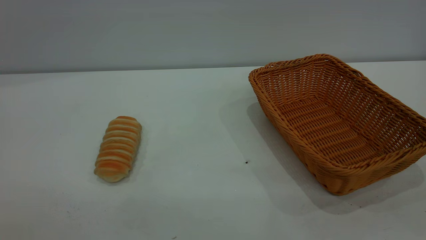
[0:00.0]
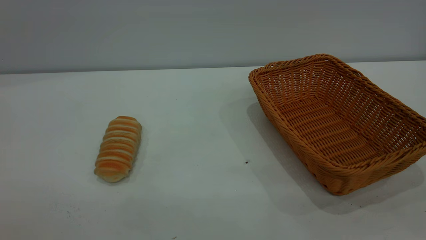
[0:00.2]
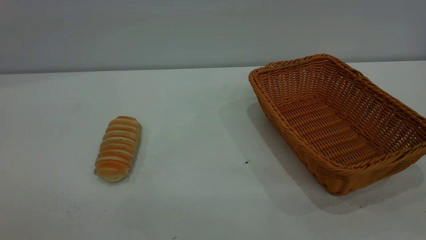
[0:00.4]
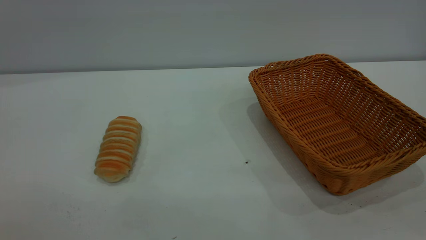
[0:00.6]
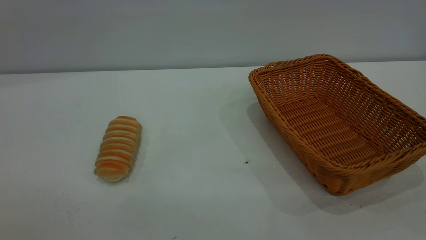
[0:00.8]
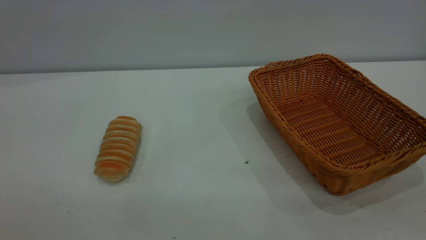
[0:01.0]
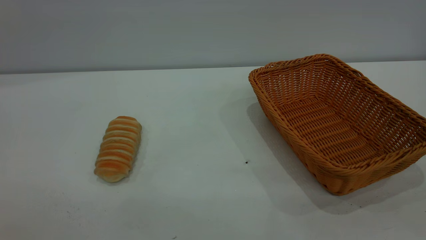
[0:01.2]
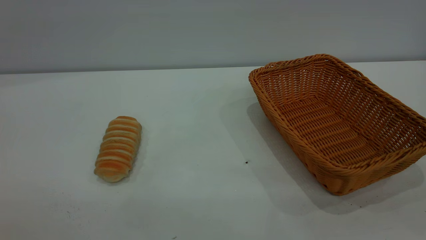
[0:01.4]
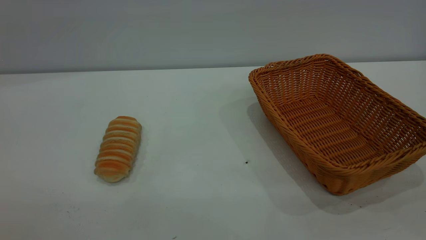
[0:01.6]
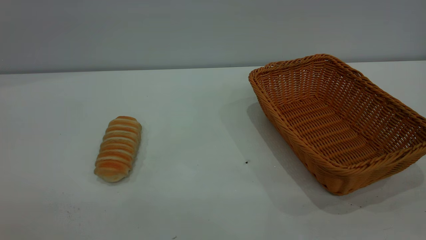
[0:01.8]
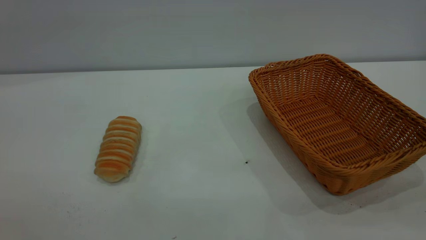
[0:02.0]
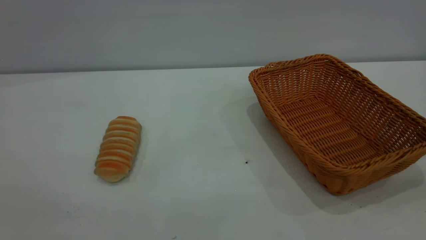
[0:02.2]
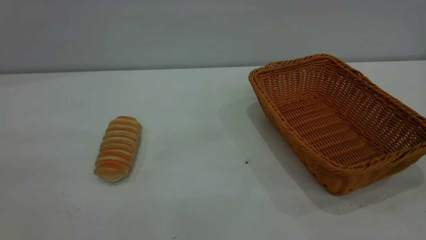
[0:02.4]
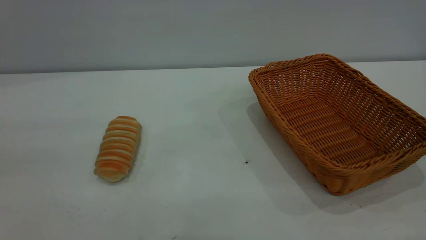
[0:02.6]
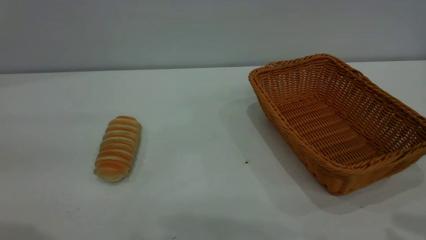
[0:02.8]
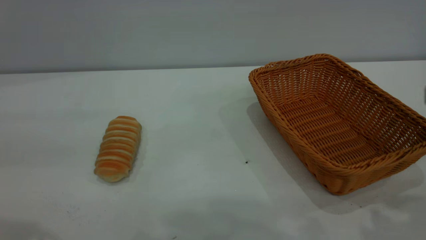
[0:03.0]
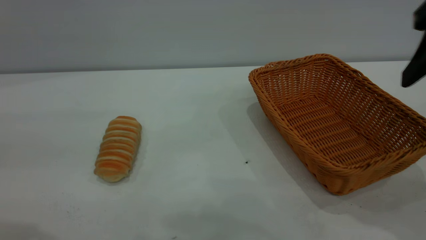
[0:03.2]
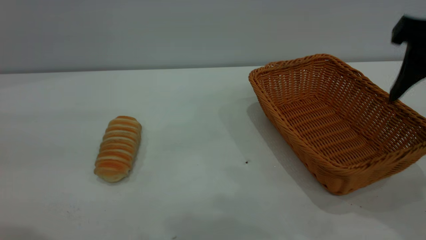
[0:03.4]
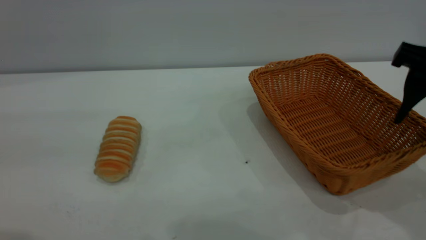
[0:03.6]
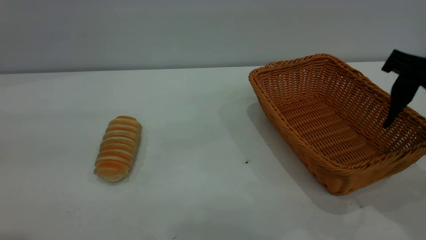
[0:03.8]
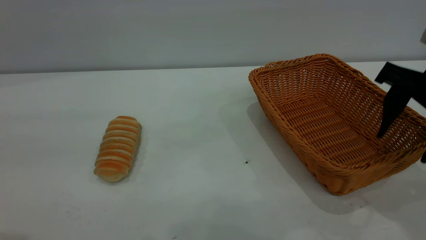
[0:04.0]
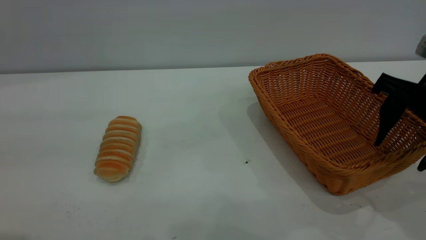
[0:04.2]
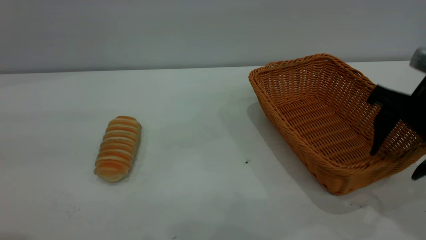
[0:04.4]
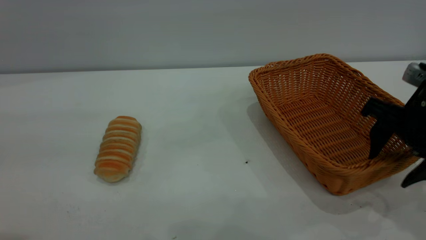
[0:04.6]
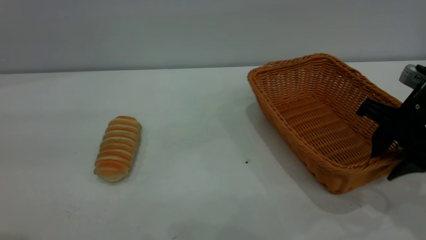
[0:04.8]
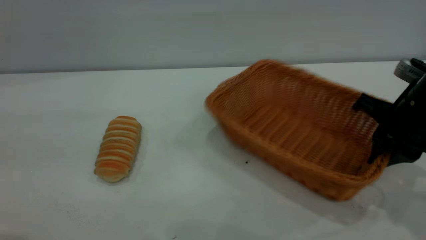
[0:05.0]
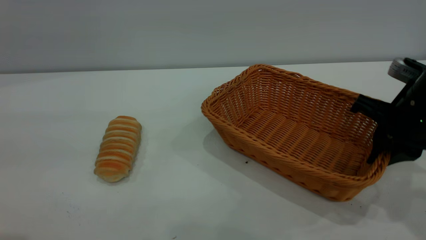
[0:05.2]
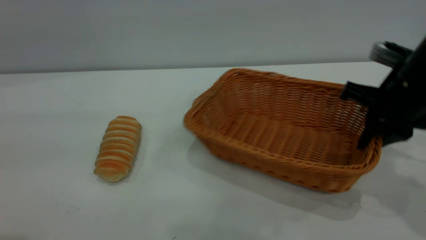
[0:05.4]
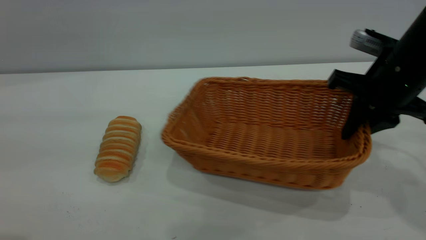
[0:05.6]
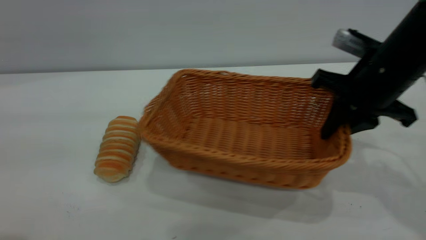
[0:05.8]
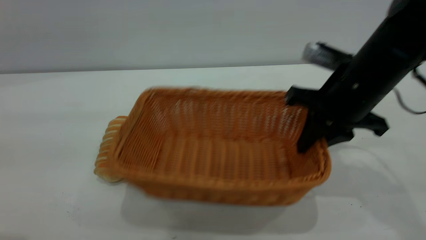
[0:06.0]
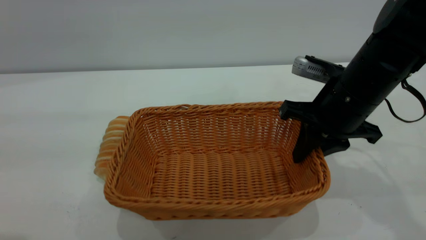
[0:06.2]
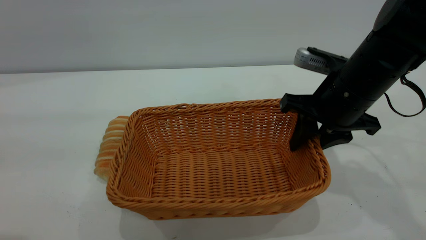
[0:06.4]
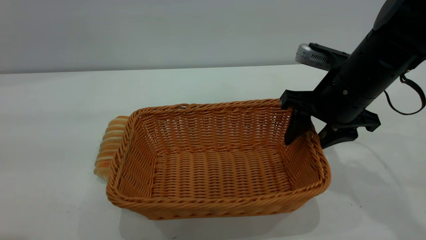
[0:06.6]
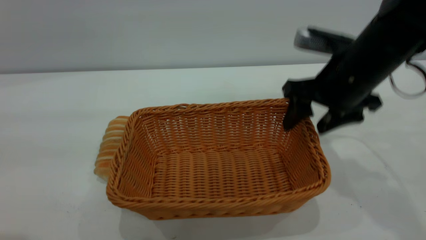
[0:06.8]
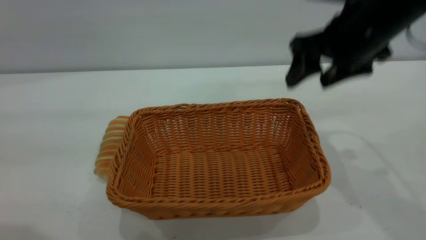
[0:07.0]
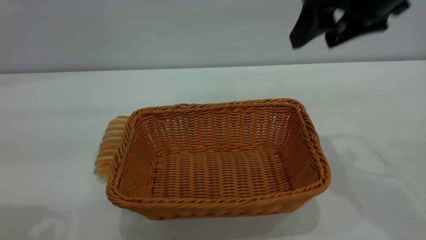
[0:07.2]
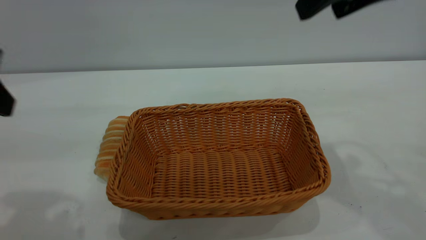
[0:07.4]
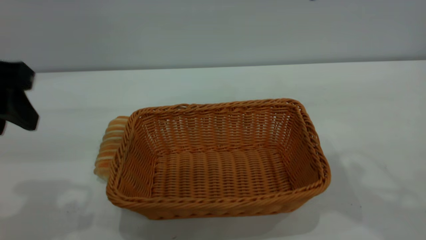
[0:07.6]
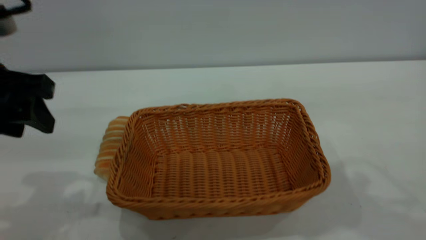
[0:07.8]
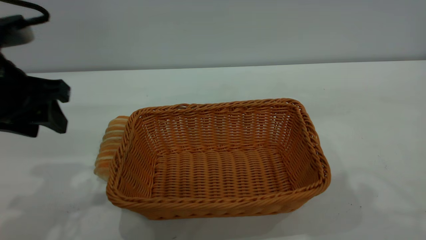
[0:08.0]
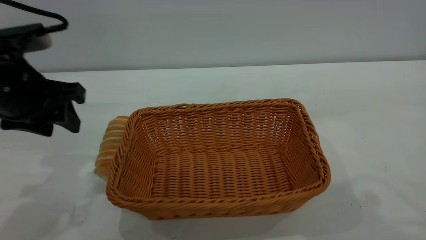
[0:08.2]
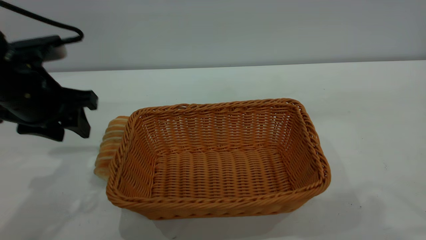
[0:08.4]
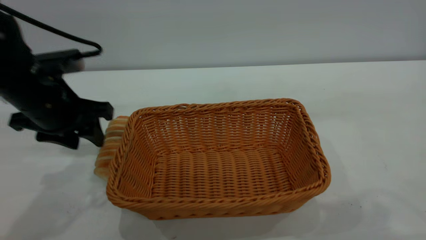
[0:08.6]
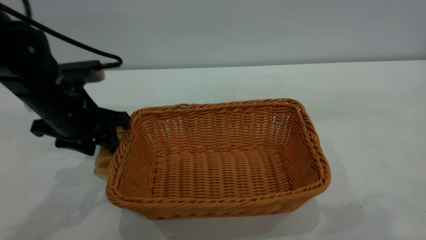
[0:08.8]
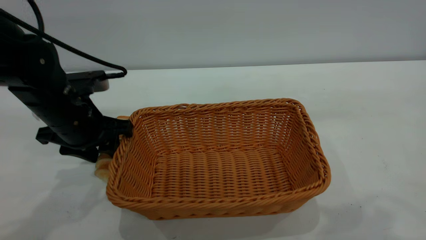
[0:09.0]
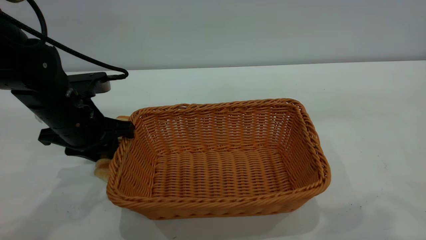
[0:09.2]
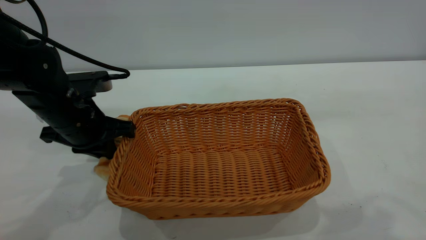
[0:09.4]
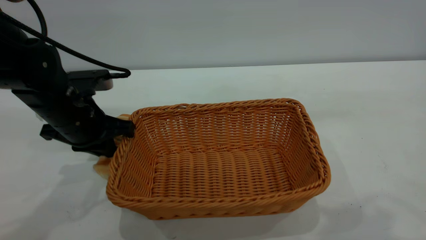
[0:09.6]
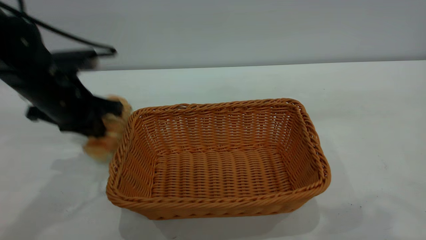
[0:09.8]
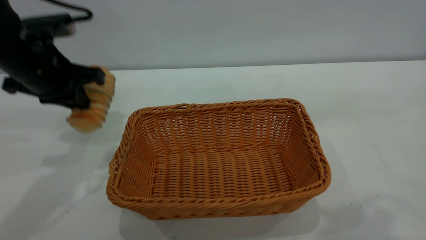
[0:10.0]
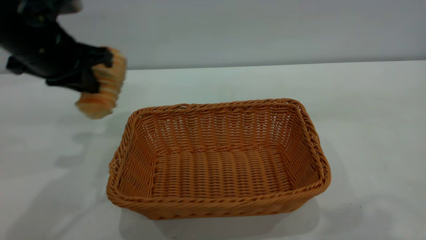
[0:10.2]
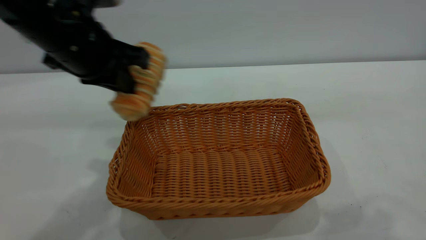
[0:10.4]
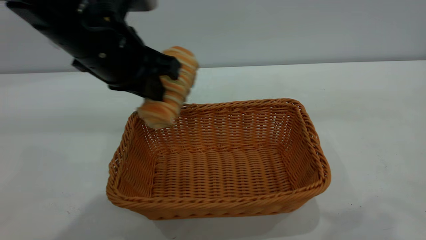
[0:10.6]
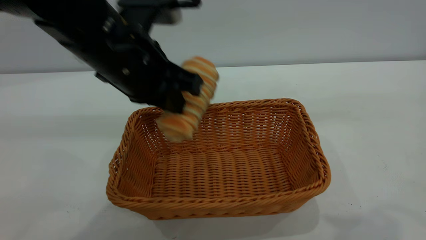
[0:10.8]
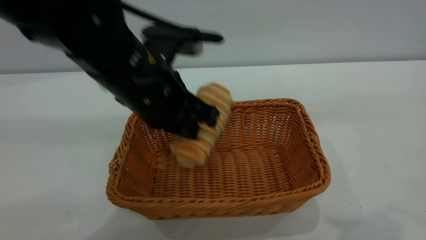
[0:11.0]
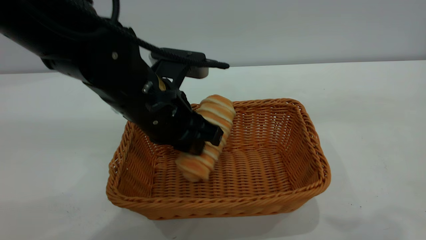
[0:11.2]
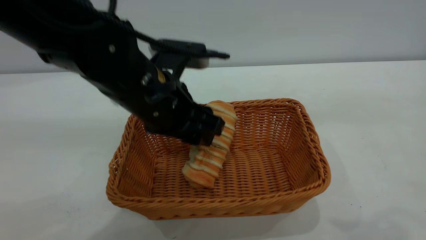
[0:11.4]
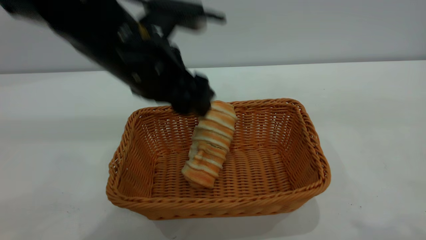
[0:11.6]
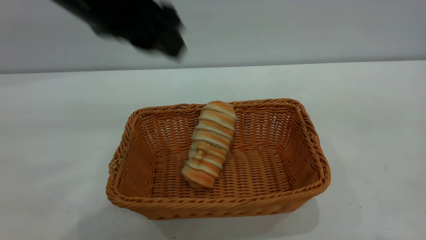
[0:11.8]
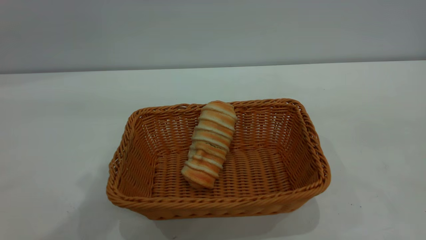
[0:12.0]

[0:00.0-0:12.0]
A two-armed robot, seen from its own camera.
Task of the whole recording: One hand grasps the yellow basket and places it in the middle of the table, while the other hand picks up the long bread and puts it into the yellow basket.
Step, 0:00.0 to 0:06.8: Move the basket to the center of view.
Step, 0:10.0 to 0:11.6: place the bread into the basket.
0:03.0 to 0:04.4: The right gripper heads downward and forward, covering roughly 15 cm.
0:04.4 to 0:06.0: The right gripper is displaced to the left by roughly 10 cm, and closes.
0:06.0 to 0:07.6: The right gripper travels upward by some 20 cm, and opens up; the left gripper travels downward and forward by about 15 cm.
0:07.6 to 0:09.0: The left gripper shifts approximately 15 cm downward and forward. Meanwhile the right gripper shifts roughly 10 cm backward and upward.
0:09.0 to 0:10.4: The left gripper is displaced upward and to the right by approximately 15 cm, and closes up.
0:10.4 to 0:12.0: The left gripper travels upward and backward by about 15 cm, and opens up. The right gripper moves backward, about 10 cm.

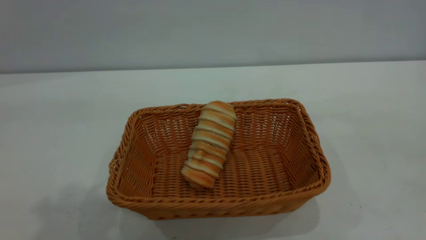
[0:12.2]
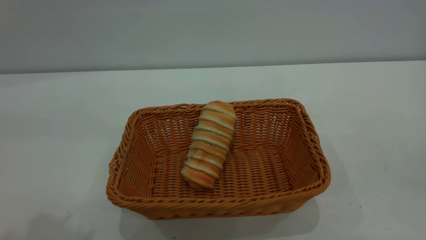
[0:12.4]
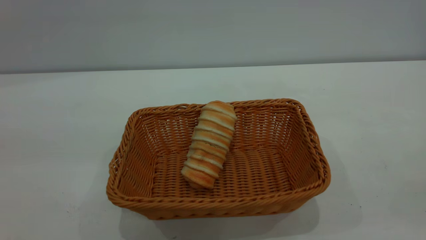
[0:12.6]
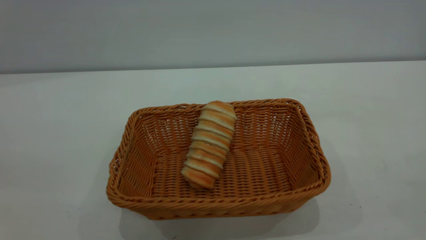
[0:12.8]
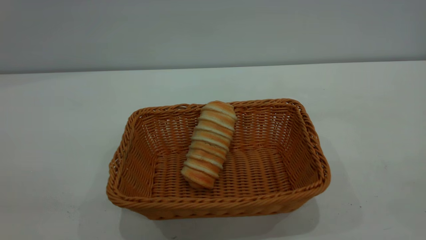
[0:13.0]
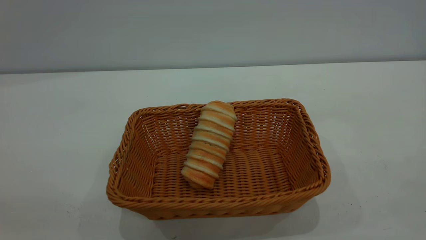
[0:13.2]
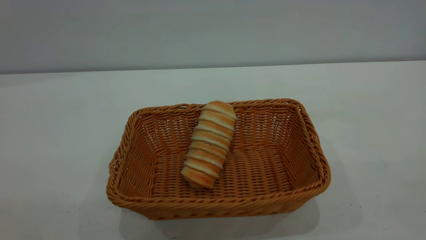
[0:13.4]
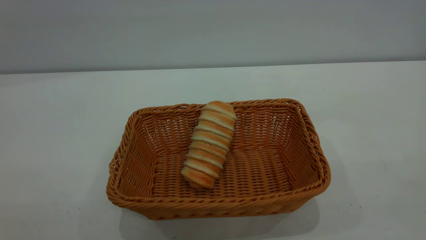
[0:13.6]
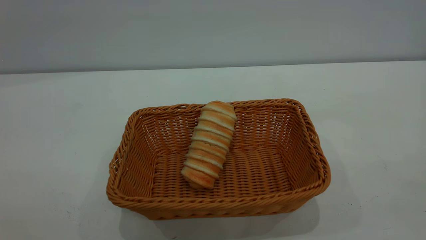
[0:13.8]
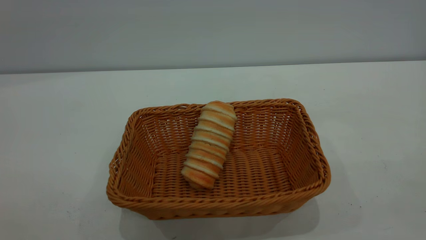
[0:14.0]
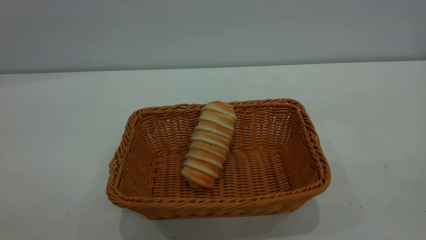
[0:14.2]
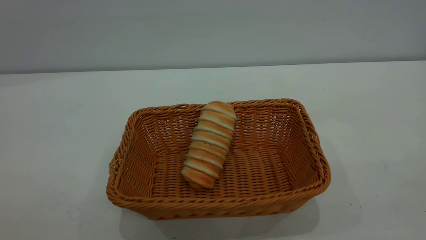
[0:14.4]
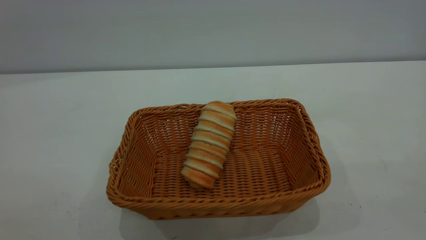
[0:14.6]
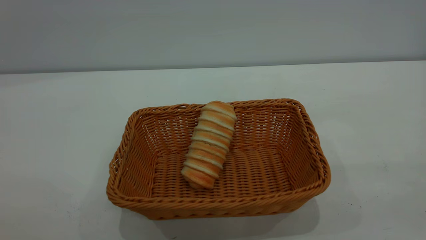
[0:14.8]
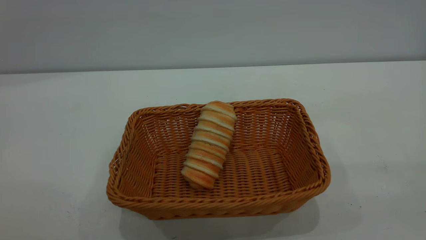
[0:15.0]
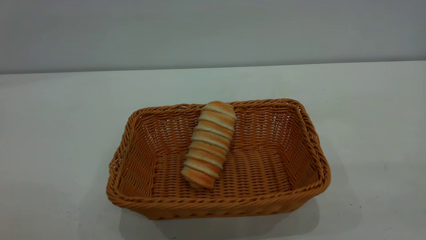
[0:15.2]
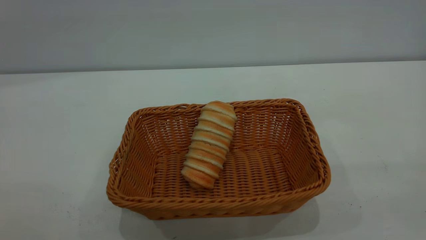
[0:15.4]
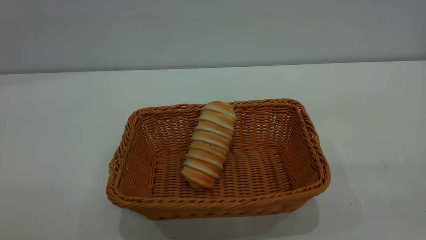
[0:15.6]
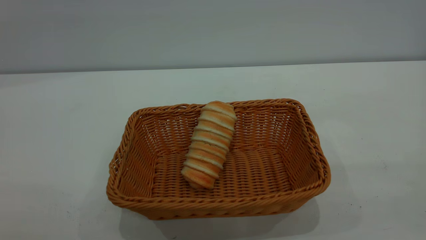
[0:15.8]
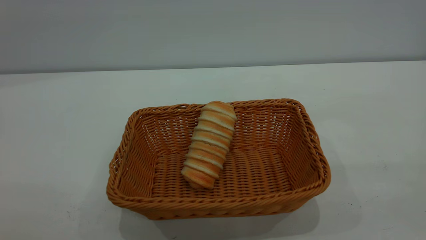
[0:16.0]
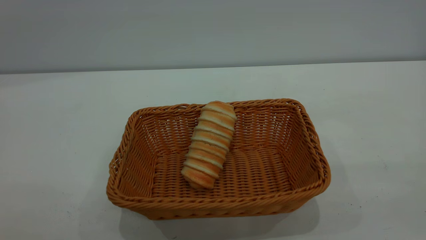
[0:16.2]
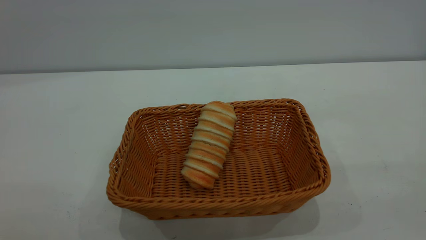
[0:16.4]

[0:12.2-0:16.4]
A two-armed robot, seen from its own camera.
Task of the whole recording: One hand grasps the yellow basket and places it in the middle of the table, while the other hand picks up the long bread and puts it into the yellow basket.
0:15.0 to 0:16.4: Both grippers stay about where they are.
